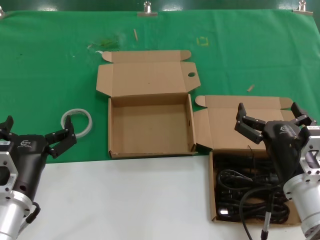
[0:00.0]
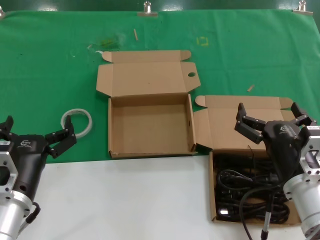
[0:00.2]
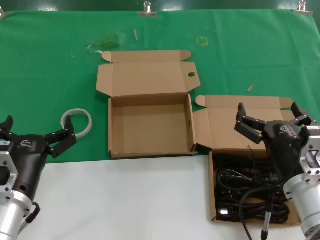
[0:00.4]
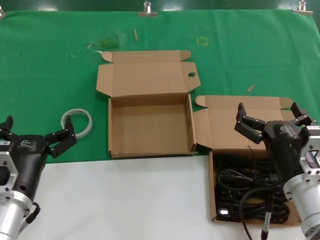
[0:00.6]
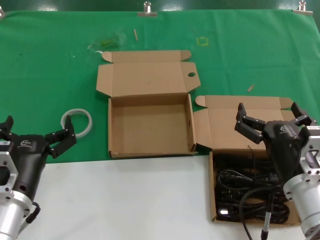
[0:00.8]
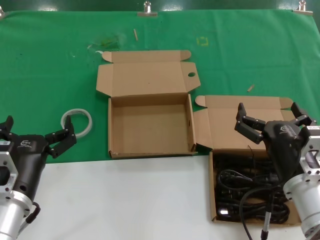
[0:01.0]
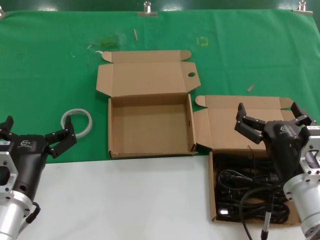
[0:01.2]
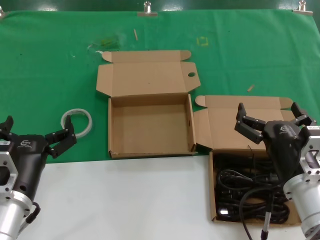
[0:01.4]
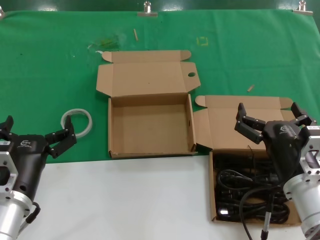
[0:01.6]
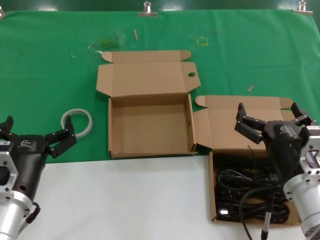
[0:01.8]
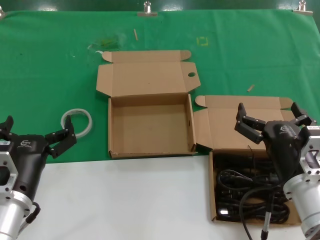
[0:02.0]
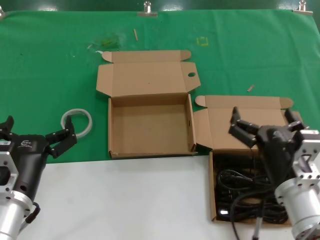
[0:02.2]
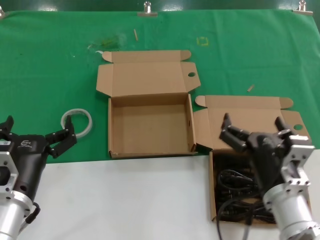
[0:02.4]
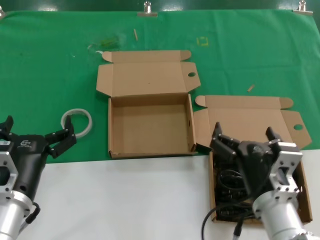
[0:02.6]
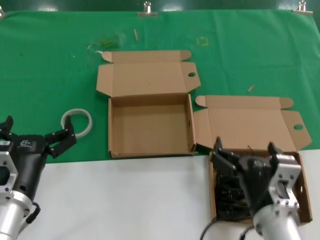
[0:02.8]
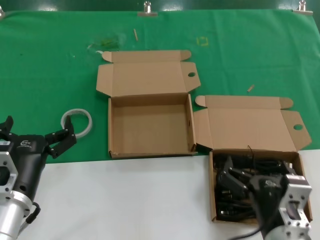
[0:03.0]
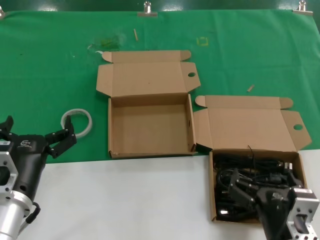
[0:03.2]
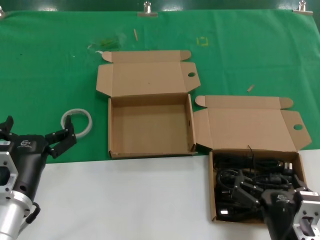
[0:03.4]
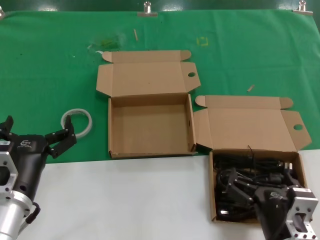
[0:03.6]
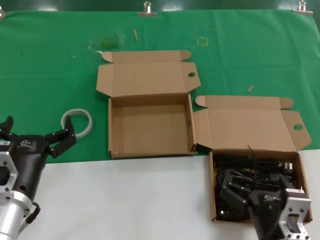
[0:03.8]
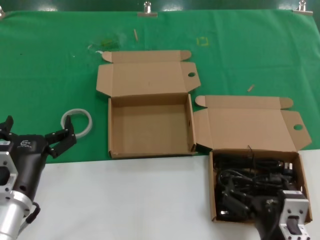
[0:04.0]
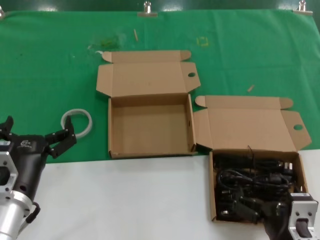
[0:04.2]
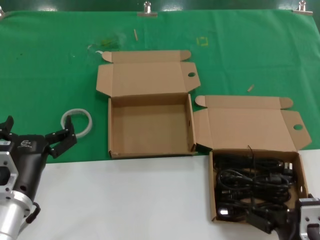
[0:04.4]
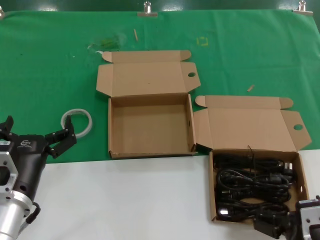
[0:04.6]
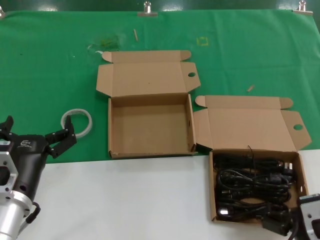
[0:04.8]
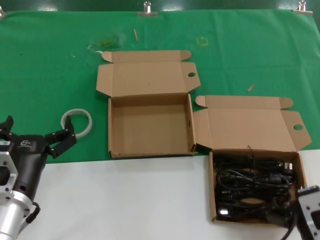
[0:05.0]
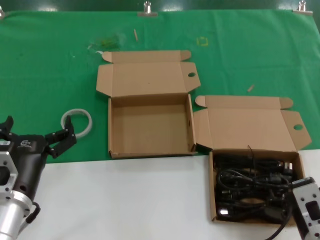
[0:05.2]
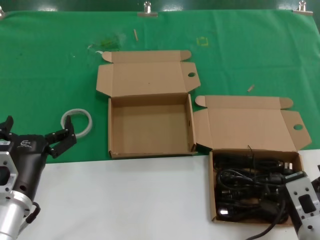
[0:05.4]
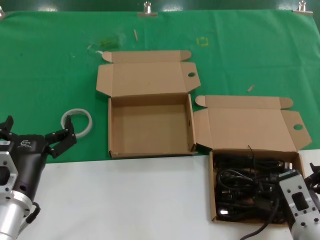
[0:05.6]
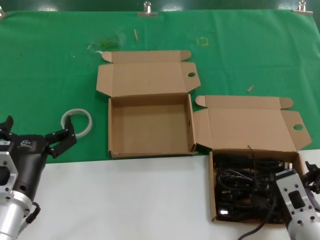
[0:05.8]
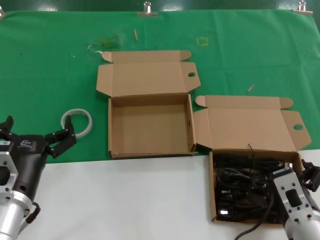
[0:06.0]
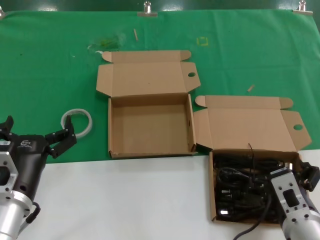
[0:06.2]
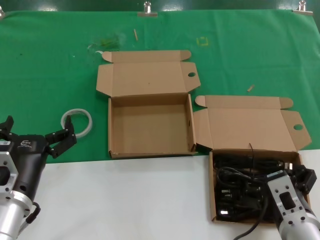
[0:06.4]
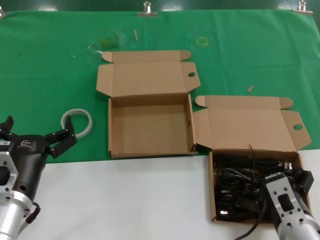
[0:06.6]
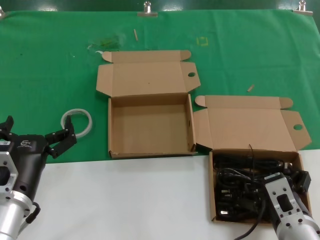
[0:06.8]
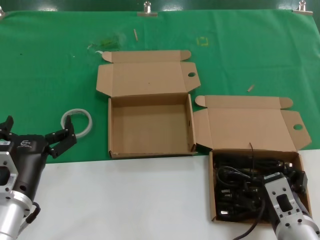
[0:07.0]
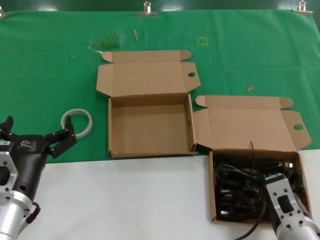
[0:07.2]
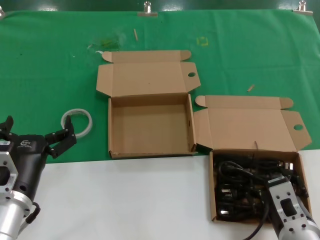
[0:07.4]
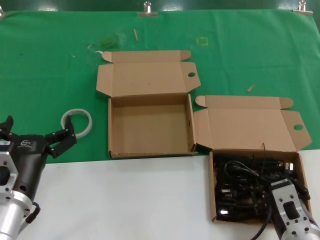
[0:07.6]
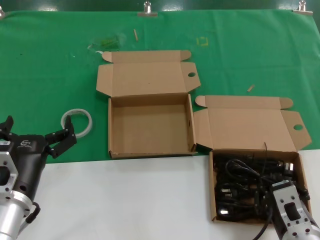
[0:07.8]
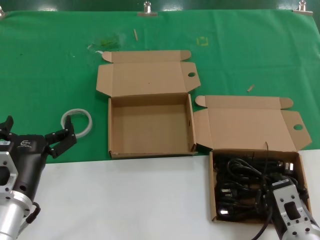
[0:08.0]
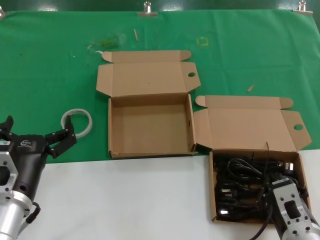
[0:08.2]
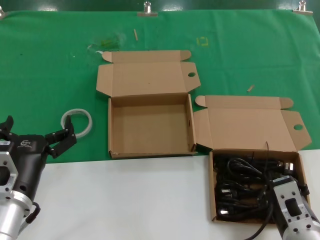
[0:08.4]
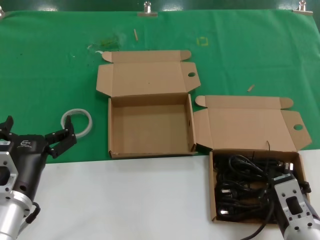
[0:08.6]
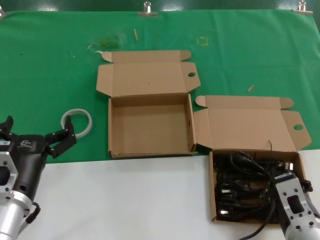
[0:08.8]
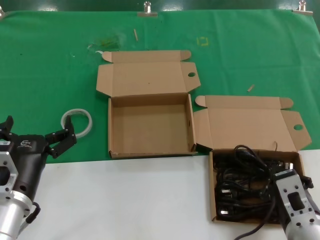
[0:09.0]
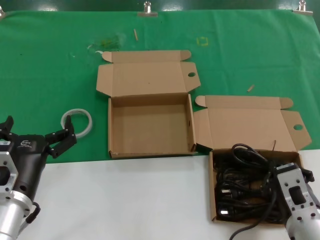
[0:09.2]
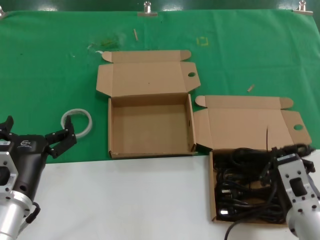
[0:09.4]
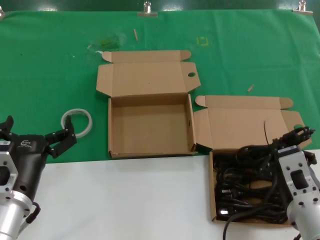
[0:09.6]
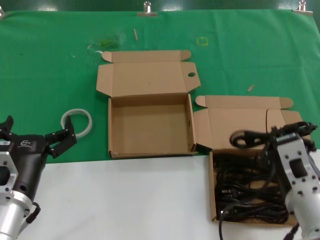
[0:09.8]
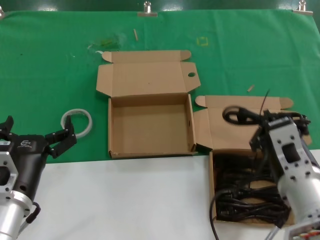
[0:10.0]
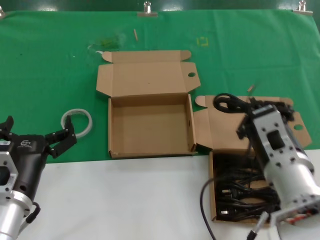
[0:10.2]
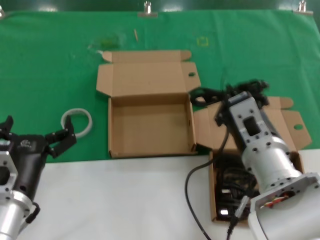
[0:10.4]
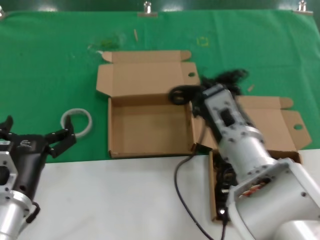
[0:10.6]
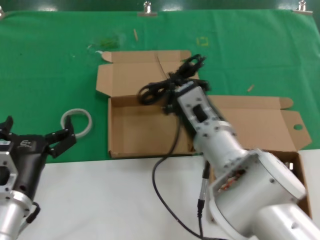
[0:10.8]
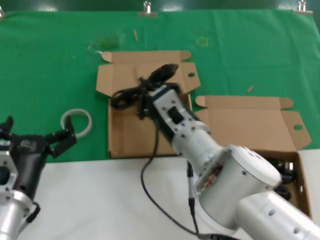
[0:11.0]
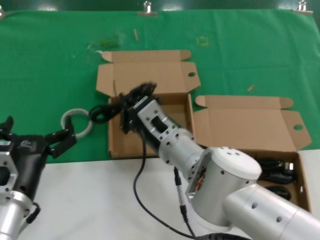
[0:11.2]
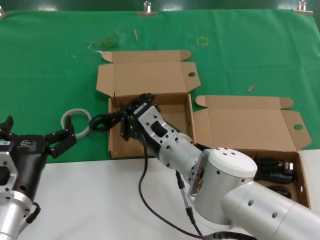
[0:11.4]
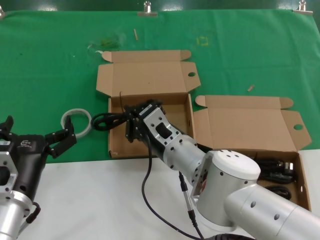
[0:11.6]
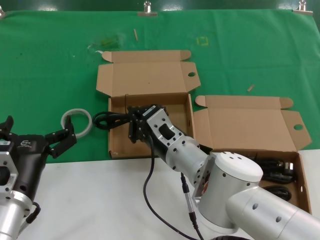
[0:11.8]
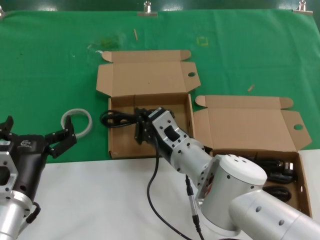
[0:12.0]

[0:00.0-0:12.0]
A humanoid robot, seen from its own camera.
Task of the whole recording: take the parts from the box containing them and put them into an empty box.
Step, 0:00.0 to 0:08.4: Grasp the data cable.
0:00.0 to 0:01.6: Both hands stay put.
0:01.6 to 0:03.0: The right hand travels backward and to the left by some 10 cm.
0:03.0 to 0:04.4: The right hand moves some 5 cm.
0:04.4 to 0:06.0: The right hand travels forward by some 5 cm.
0:06.0 to 0:09.0: There are only small adjustments of the hands.
0:09.0 to 0:10.4: The right hand is displaced upward, forward and to the left by some 15 cm.
0:10.4 to 0:12.0: The right hand moves forward, to the left and downward, about 15 cm.

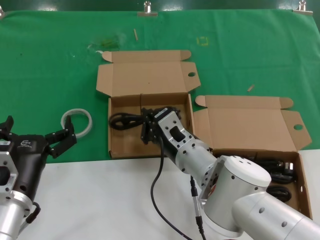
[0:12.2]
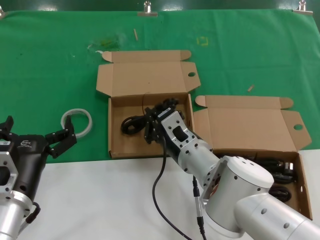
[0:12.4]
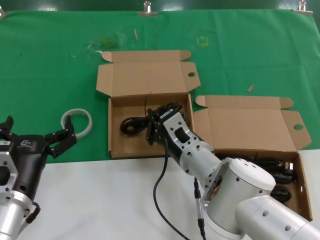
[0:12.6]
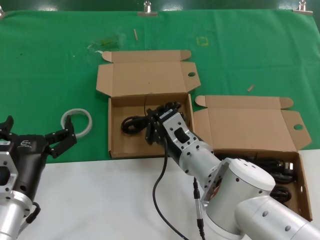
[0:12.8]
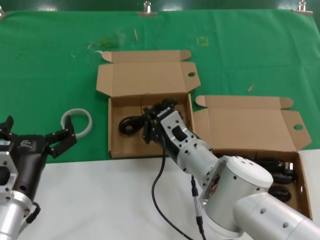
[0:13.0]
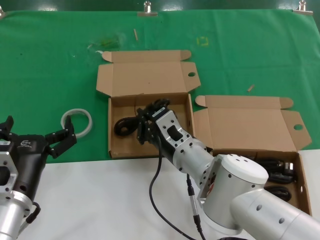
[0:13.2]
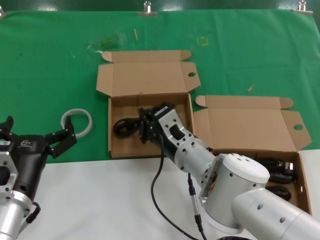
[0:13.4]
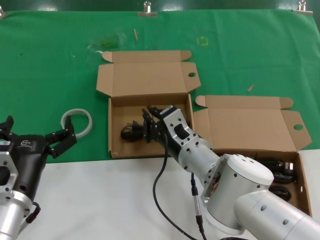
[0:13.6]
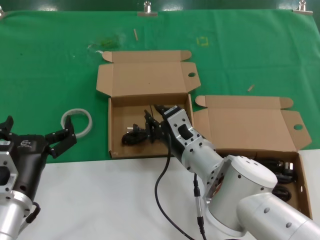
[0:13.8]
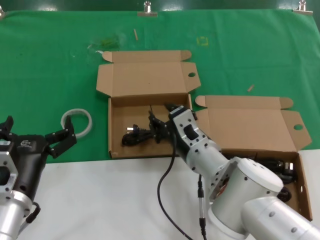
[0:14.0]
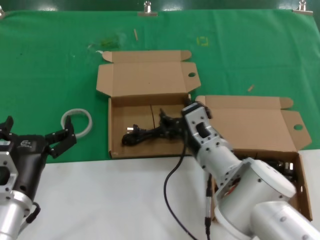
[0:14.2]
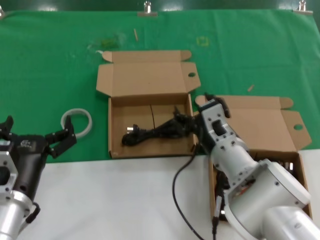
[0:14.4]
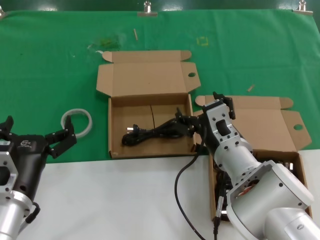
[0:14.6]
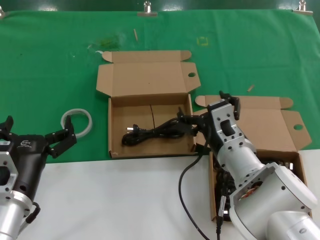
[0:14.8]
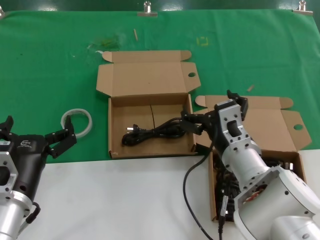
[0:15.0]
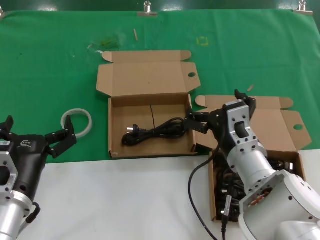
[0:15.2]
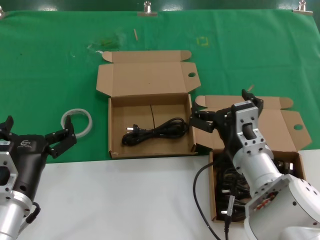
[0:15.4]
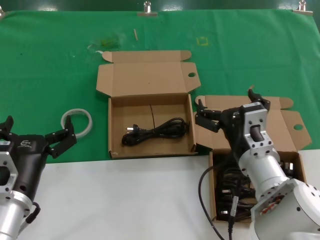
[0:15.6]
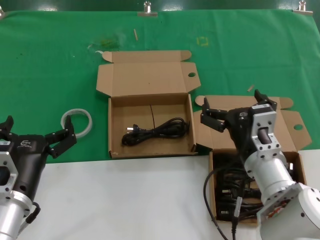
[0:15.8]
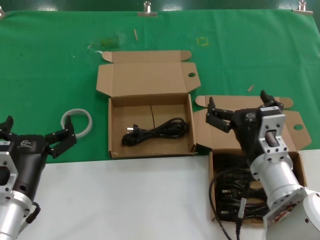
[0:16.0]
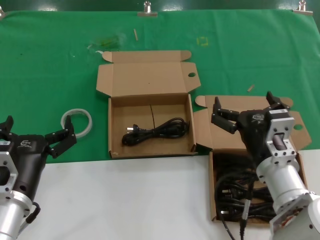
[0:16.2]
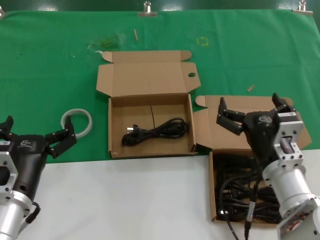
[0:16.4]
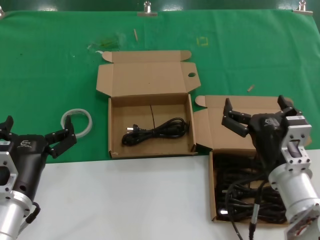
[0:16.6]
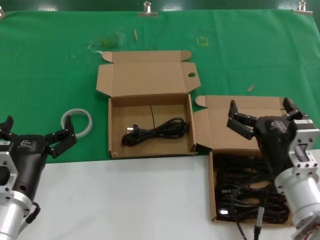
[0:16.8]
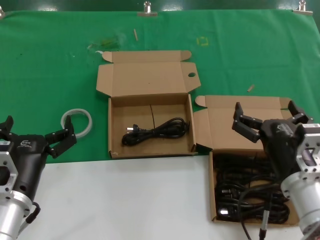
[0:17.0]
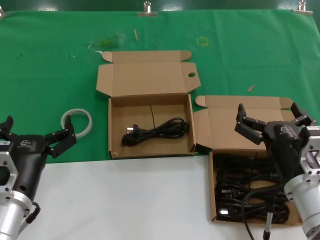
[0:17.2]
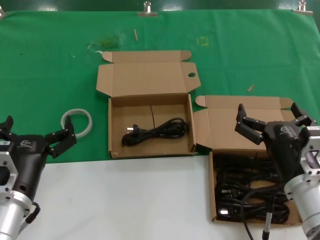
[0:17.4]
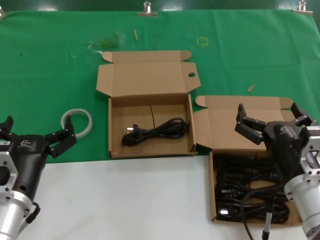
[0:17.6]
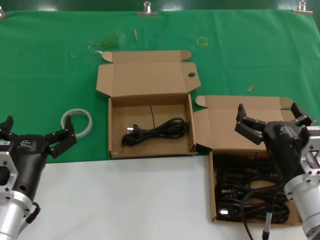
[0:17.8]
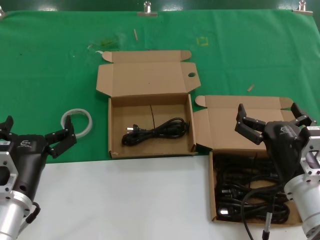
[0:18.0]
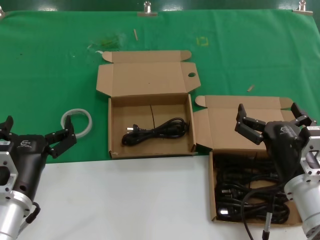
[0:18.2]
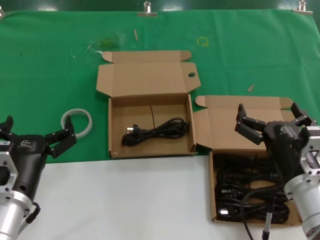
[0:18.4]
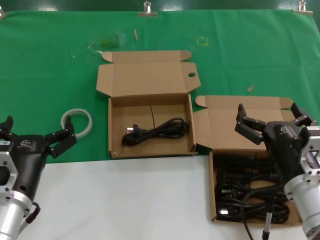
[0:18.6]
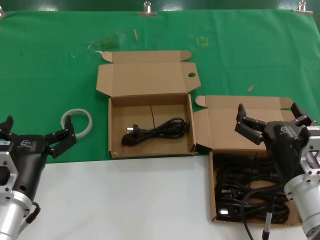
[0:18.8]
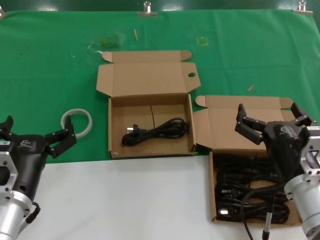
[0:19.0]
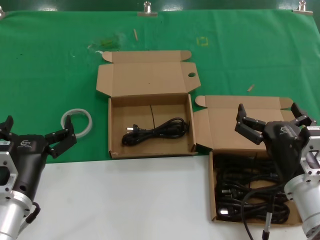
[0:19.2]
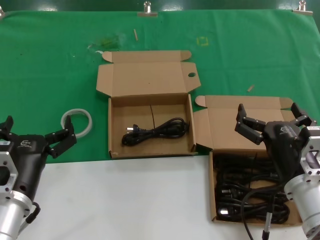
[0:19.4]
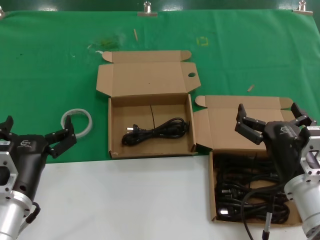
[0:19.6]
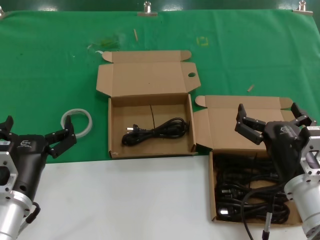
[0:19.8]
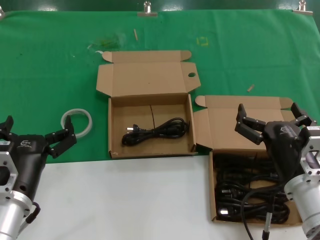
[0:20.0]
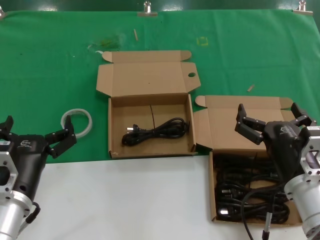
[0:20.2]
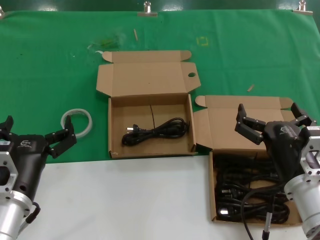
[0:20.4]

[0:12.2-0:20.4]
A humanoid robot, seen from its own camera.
Task of the whole recording: take the parts from the box containing them and put them into an empty box.
0:12.2 to 0:13.8: Both hands stay put.
0:13.8 to 0:15.4: The right hand travels to the right by some 10 cm.
0:15.4 to 0:17.2: The right hand moves to the right and backward, approximately 10 cm.
0:17.2 to 0:20.4: The two hands keep their place.

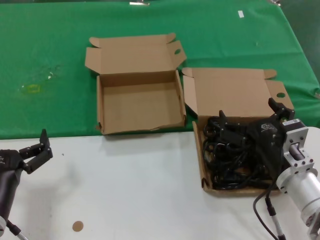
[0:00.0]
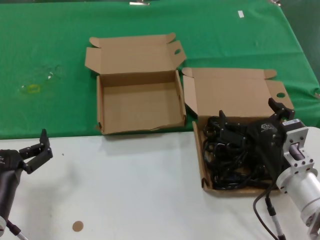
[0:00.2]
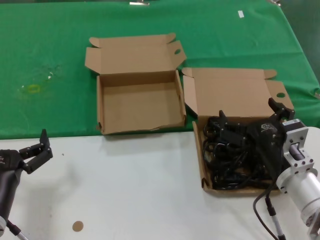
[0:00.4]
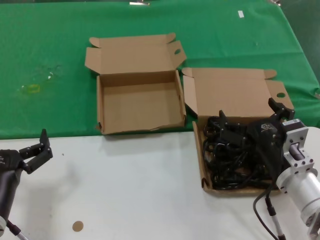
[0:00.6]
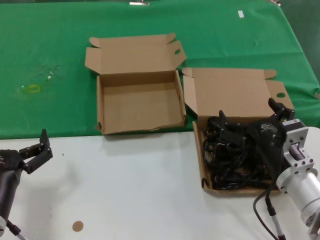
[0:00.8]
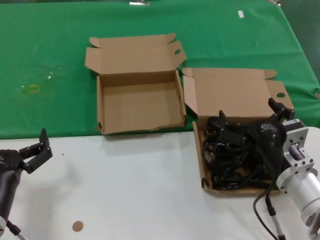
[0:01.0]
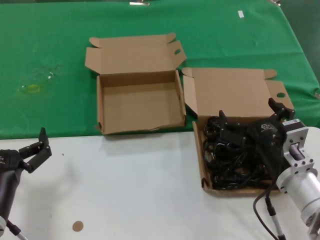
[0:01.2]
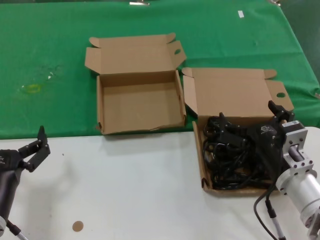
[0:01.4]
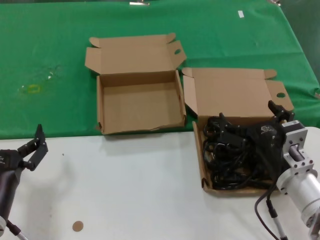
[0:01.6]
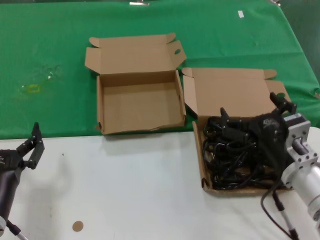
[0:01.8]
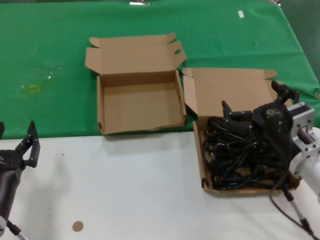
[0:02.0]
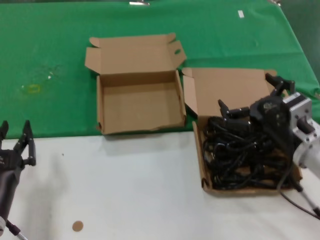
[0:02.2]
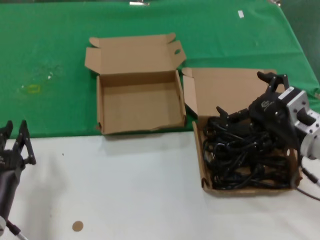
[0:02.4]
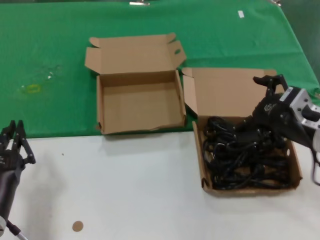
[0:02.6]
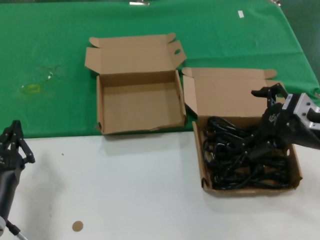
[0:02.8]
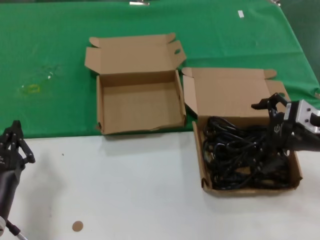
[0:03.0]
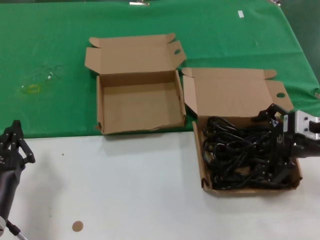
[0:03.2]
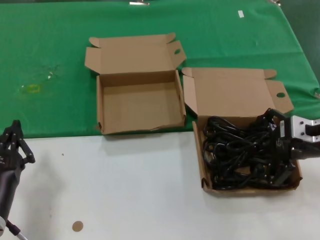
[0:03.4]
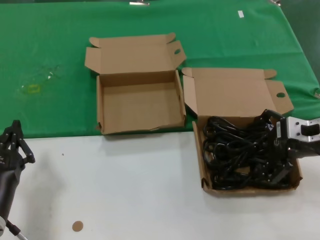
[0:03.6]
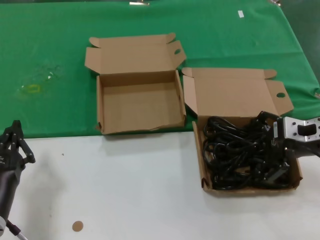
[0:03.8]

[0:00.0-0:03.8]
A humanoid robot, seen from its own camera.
Task of the whole recording: take the parts from the box containing them and put them into an empty box.
0:00.0 to 0:01.2: Neither hand changes place.
0:01.2 to 0:02.6: The right hand moves upward and to the right, roughly 10 cm.
0:02.6 to 0:03.8: The right hand changes place by some 5 cm.
